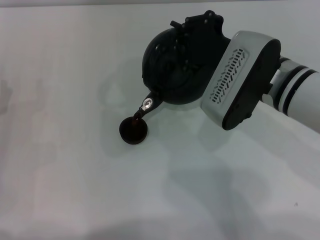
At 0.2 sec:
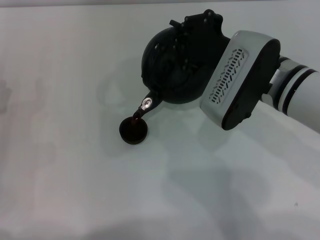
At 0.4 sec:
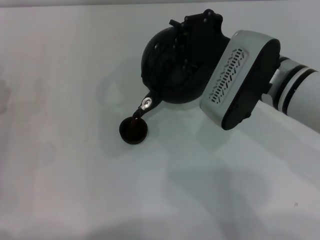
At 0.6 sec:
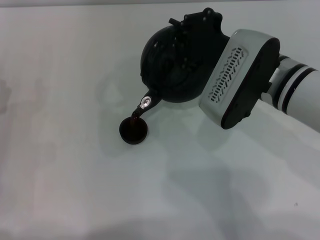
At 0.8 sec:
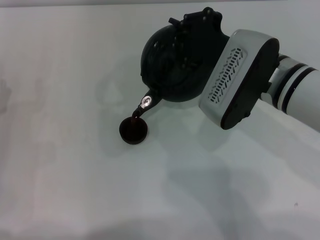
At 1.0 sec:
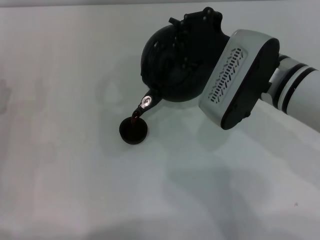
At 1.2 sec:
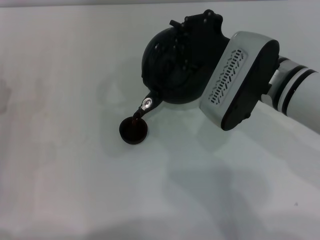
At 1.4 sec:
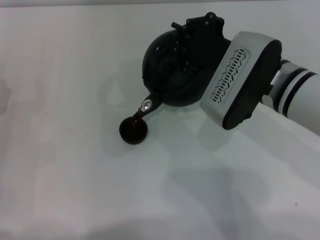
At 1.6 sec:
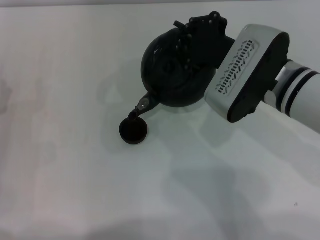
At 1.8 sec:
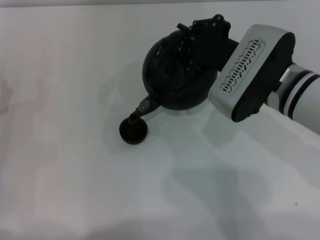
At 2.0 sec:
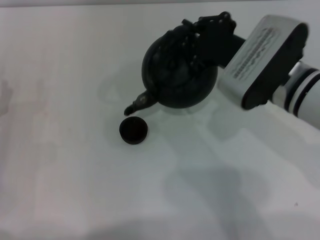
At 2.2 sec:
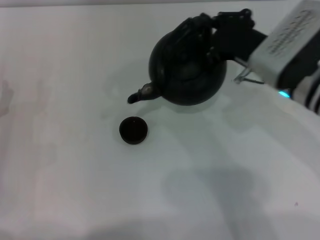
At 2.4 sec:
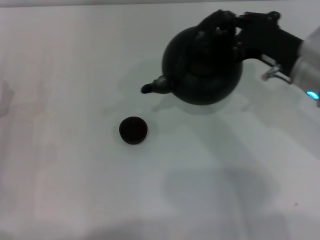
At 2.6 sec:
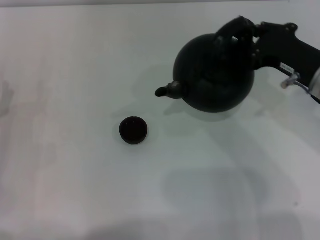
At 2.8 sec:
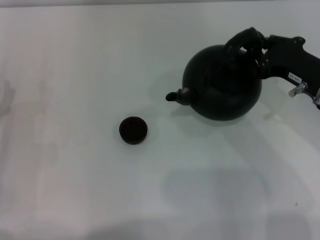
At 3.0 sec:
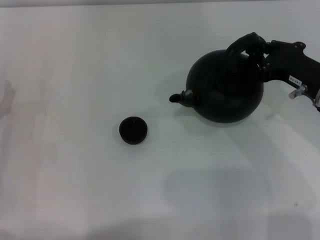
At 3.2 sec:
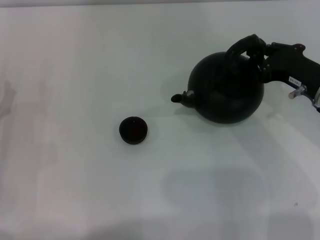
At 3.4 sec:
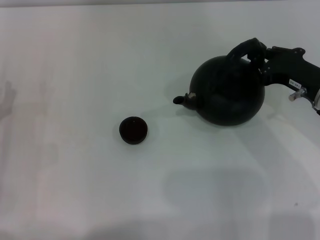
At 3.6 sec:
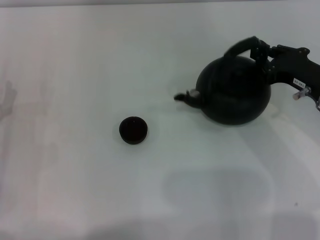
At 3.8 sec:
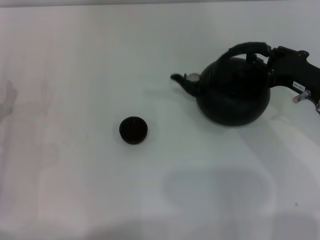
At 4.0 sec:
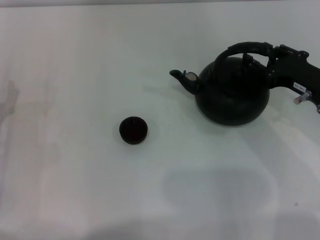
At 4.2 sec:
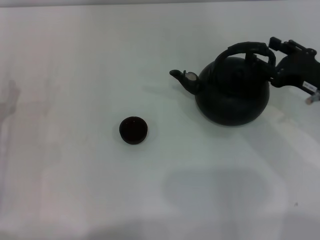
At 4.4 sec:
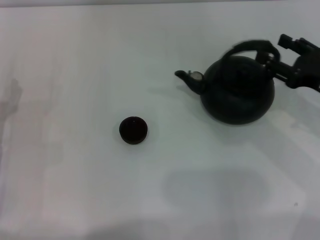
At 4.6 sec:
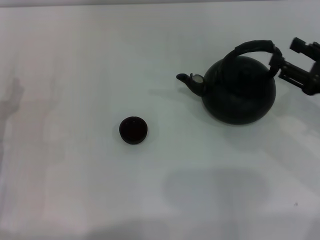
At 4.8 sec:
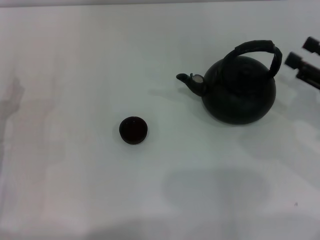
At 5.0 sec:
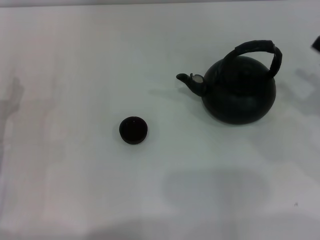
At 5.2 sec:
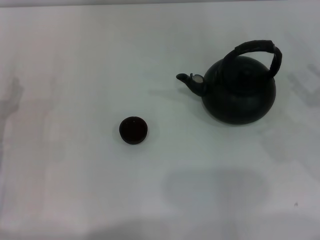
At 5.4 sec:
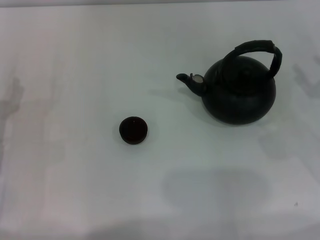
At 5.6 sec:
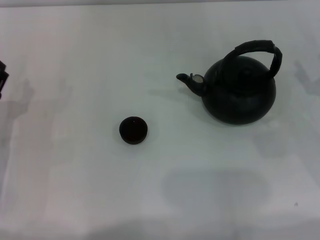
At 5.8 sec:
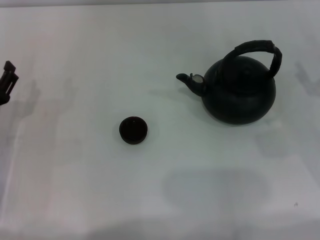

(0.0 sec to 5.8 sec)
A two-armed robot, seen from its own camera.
Task of the whole recording: Grasp the handle of the teapot with one hand and pour tea into the teacup.
Step, 0.0 sec - 2.2 sec: Pour tea into the teacup with the right gripper.
Step, 2.4 sec - 4.8 sec: Put down the teapot with the right gripper.
0.0 sec - 1.4 sec: Both grippers stay put.
1.4 sec - 2.8 sec: The right gripper goes some 10 cm to the right.
2.8 sec - 4.4 sec: The right gripper moves about 5 cm, and opens.
4.4 sec - 5.8 sec: The right gripper shifts by approximately 5 cm.
